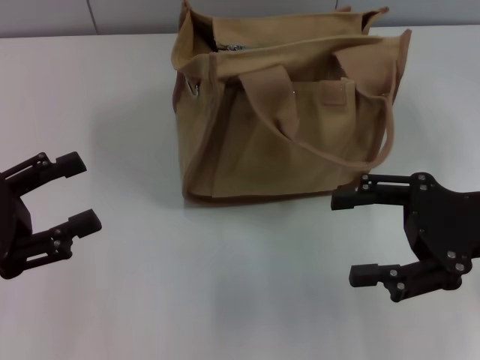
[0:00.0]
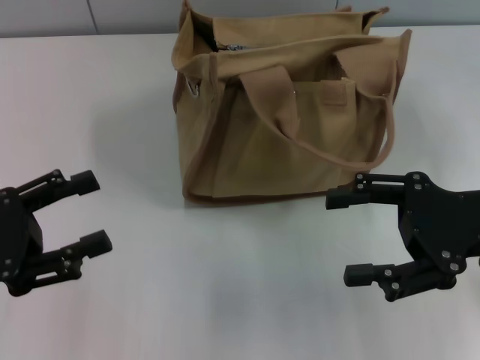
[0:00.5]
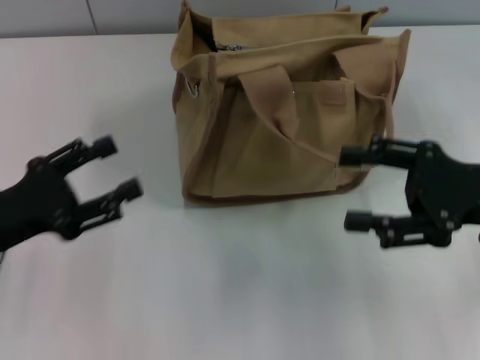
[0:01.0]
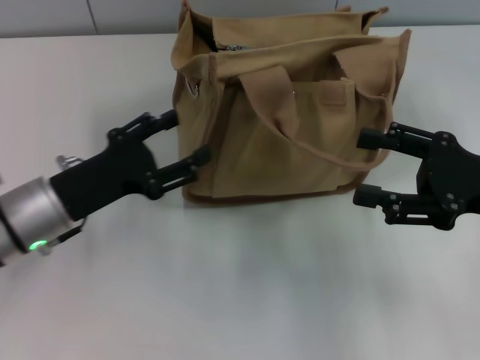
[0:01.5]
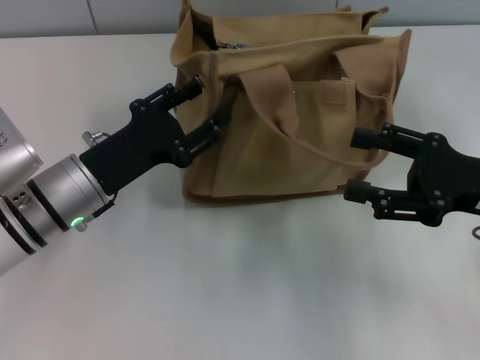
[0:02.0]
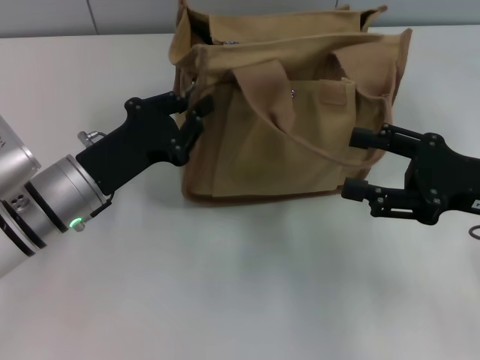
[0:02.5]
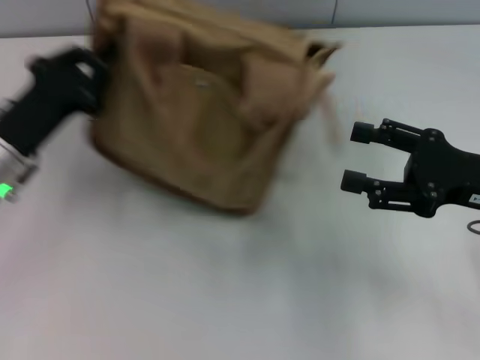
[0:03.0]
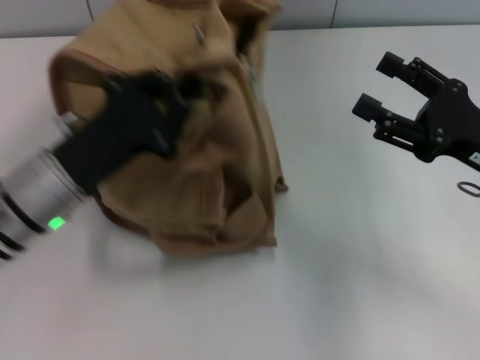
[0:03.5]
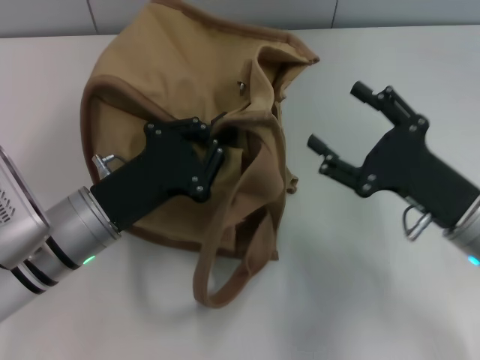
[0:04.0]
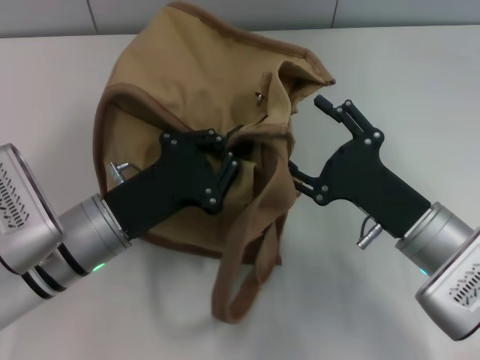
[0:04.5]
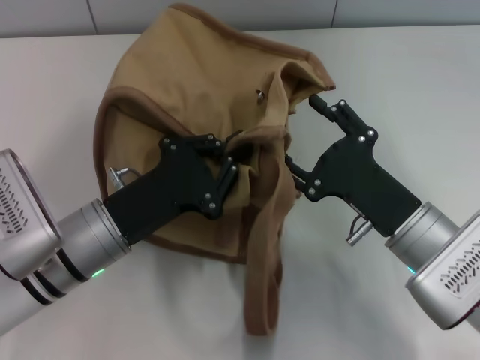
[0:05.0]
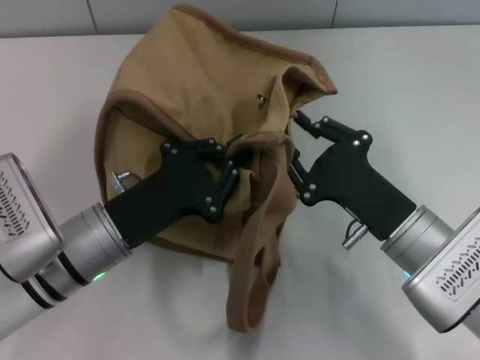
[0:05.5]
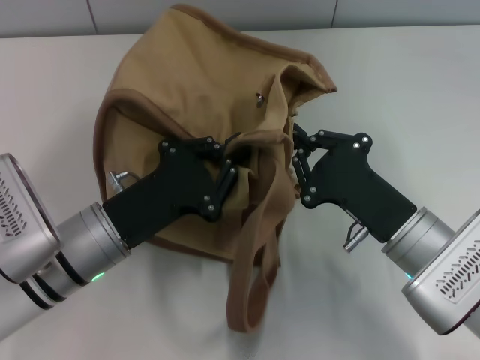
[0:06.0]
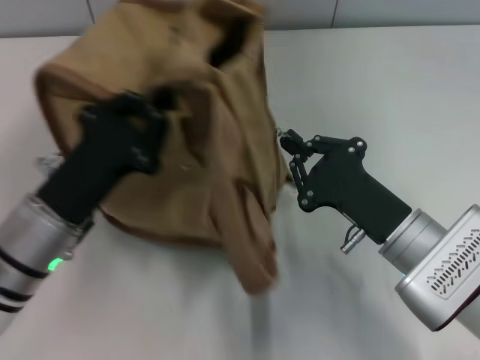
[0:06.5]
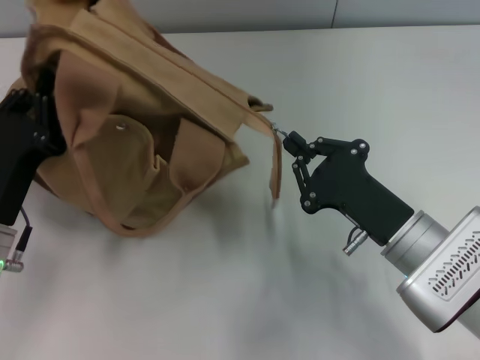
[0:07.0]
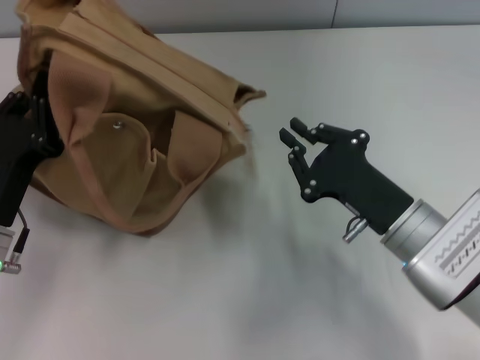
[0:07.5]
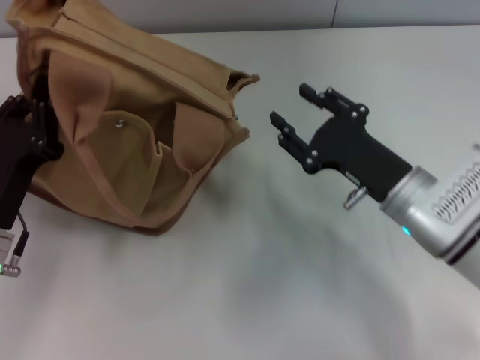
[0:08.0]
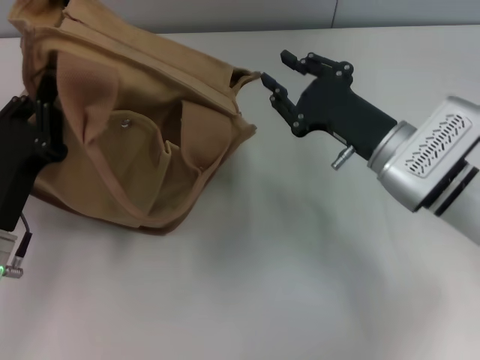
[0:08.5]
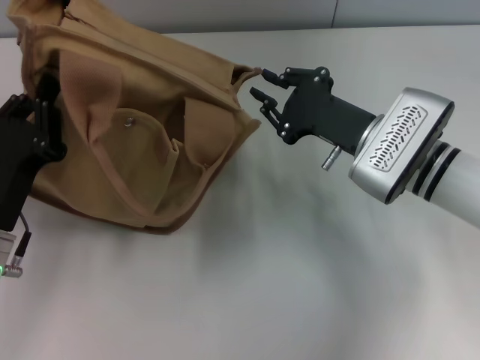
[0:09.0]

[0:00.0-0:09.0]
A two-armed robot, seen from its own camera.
Step, 0:00.0 to 0:07.0: Pull open the zipper with your right hand.
0:00.0 to 0:02.0: The left gripper is displaced to the right and forward by approximately 15 cm.
0:02.0 to 0:04.5: The right gripper shifts roughly 10 cm to the left and downward; the left gripper moves about 5 cm to the left and comes back, and closes its fingers.
0:04.5 to 0:07.0: The right gripper closes its fingers. The left gripper goes some 5 cm to the left.
0:07.0 to 0:09.0: The right gripper travels forward by approximately 10 cm.

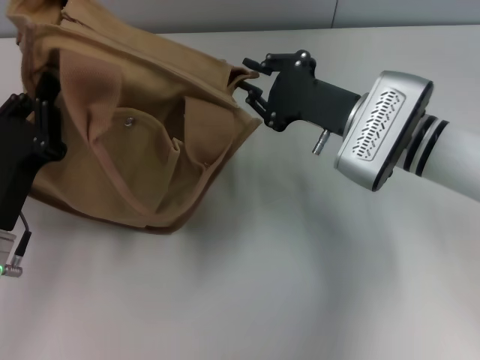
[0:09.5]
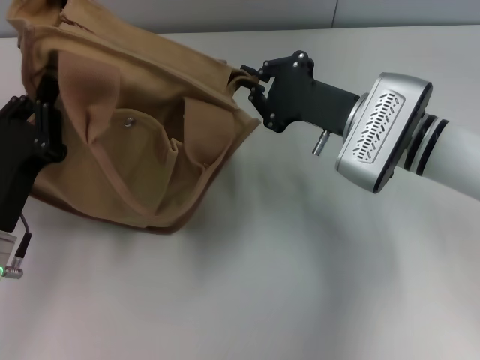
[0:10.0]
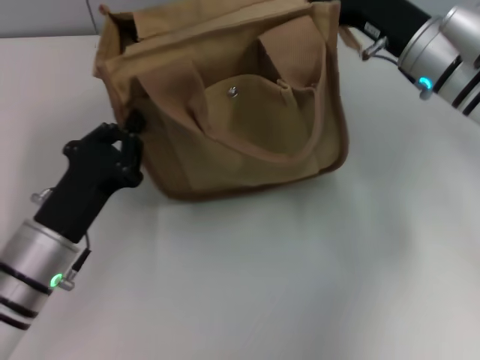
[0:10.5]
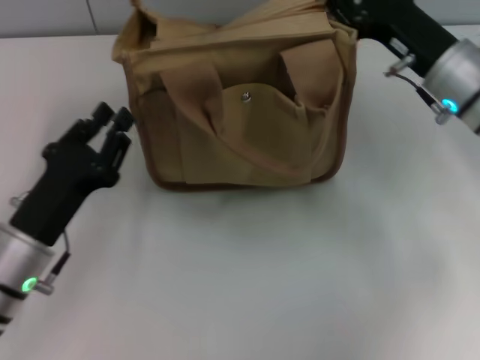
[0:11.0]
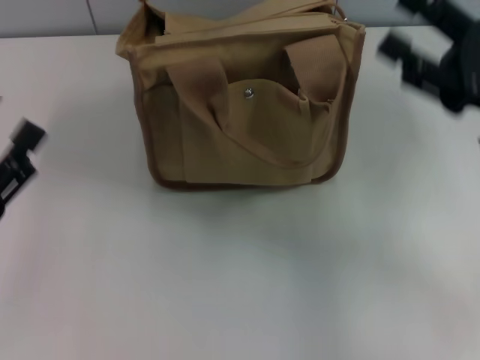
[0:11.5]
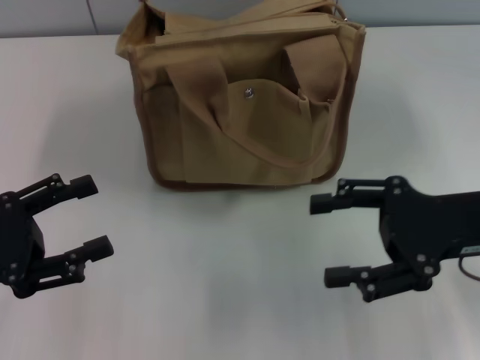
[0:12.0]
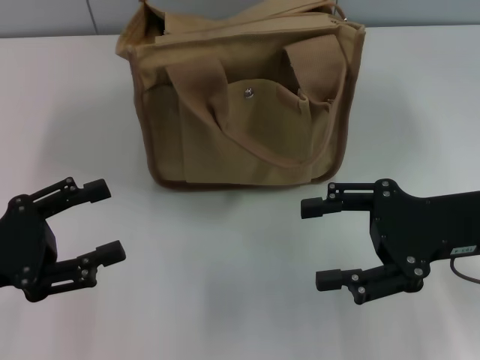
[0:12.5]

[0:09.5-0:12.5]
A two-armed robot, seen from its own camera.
0:09.5 to 0:11.0: The right gripper goes some 5 cm to the right.
0:11.0 to 0:12.5: The right gripper goes roughly 10 cm backward, and opens its fingers; the left gripper shifts some 10 cm to the left and upward, and opens its fingers.

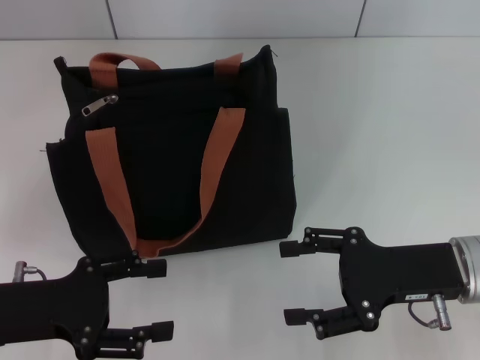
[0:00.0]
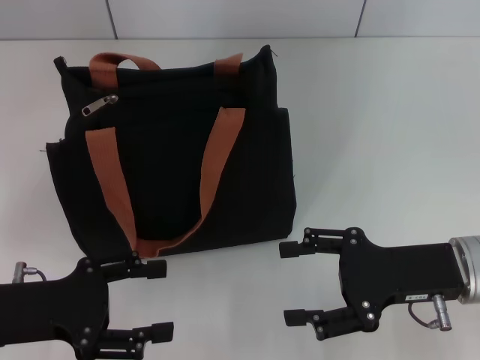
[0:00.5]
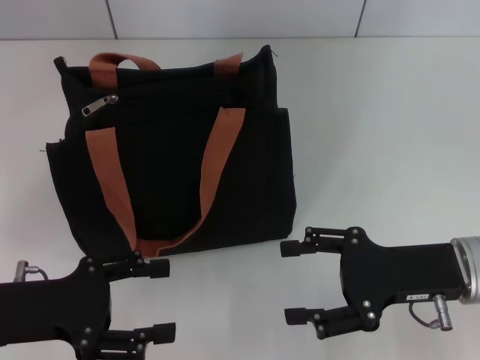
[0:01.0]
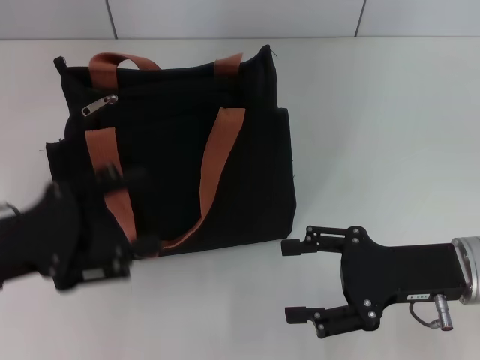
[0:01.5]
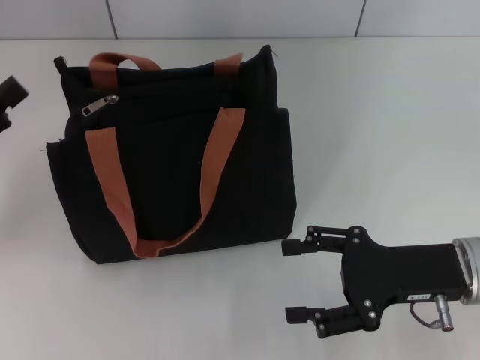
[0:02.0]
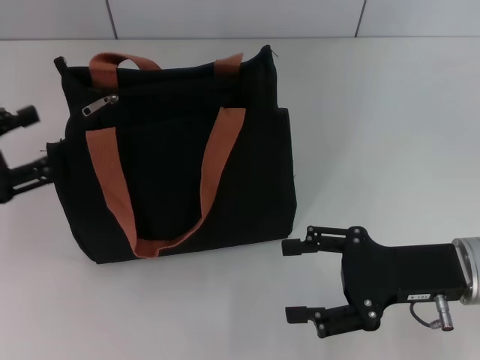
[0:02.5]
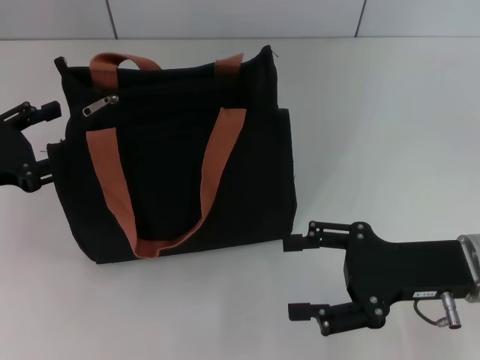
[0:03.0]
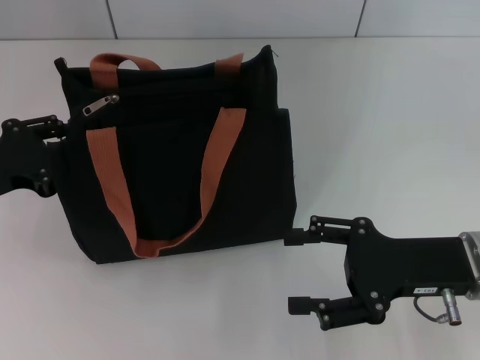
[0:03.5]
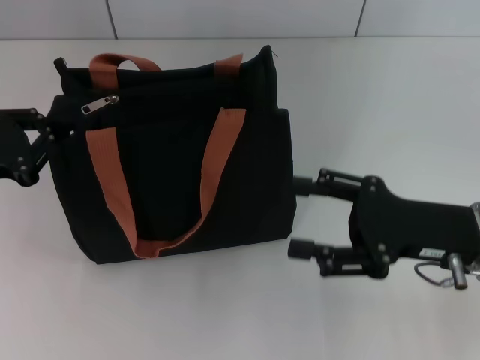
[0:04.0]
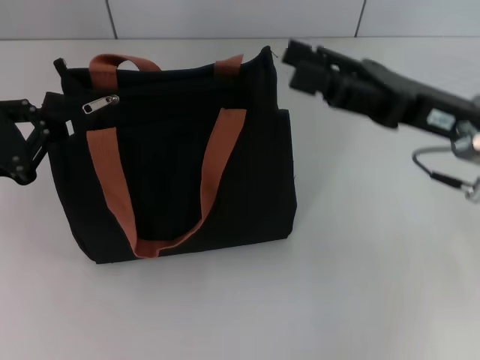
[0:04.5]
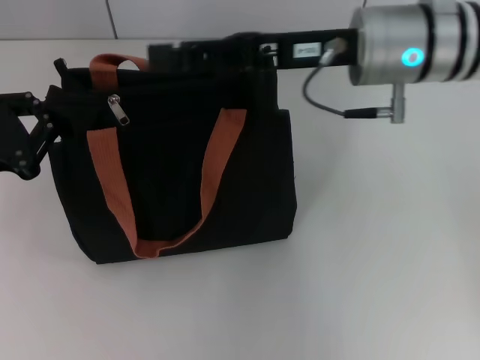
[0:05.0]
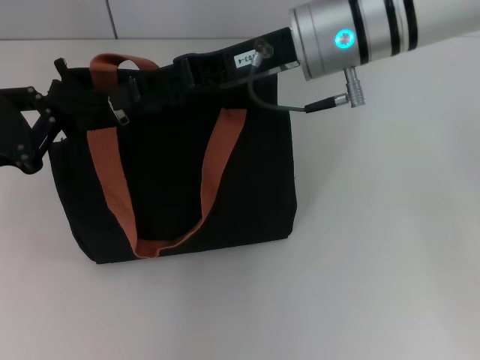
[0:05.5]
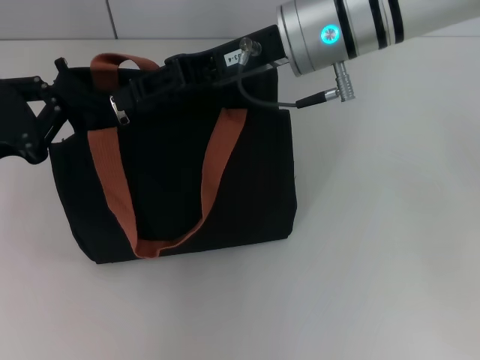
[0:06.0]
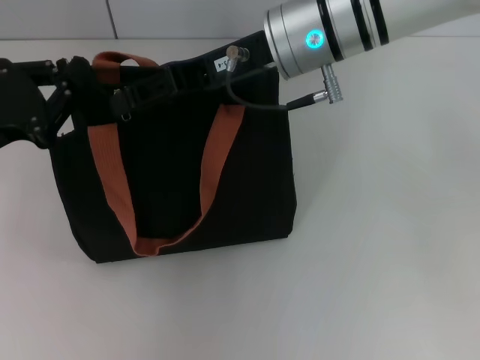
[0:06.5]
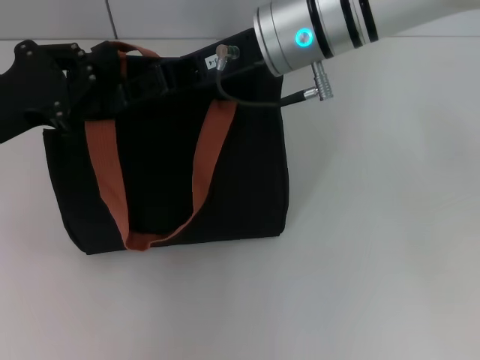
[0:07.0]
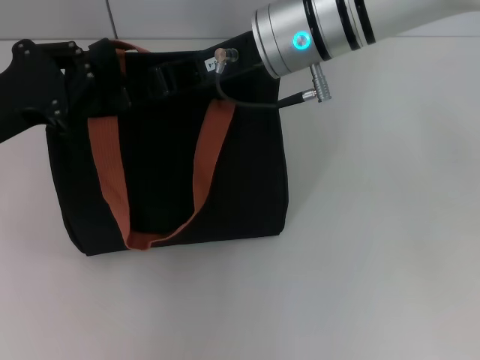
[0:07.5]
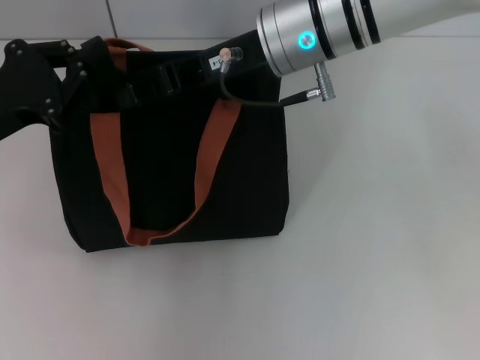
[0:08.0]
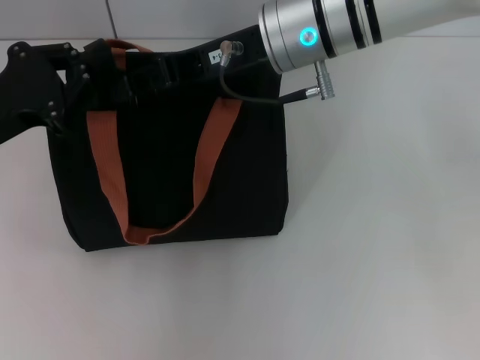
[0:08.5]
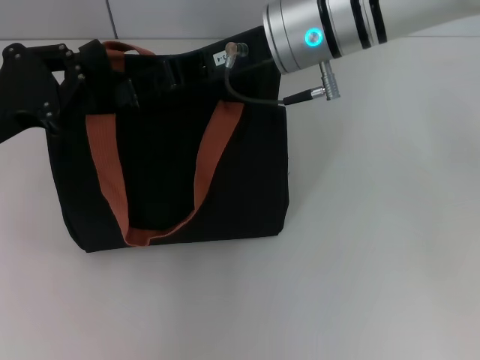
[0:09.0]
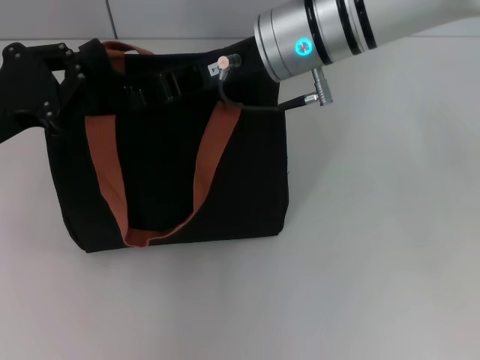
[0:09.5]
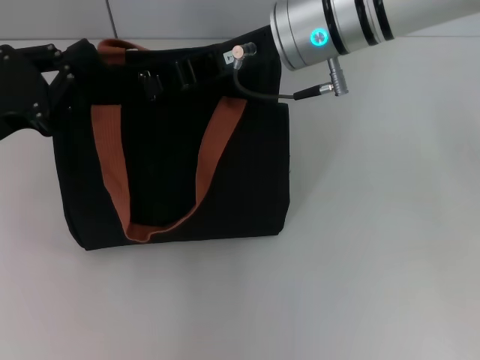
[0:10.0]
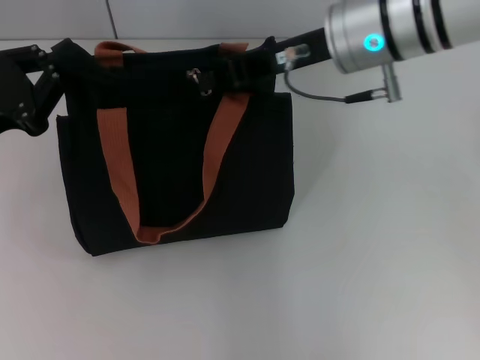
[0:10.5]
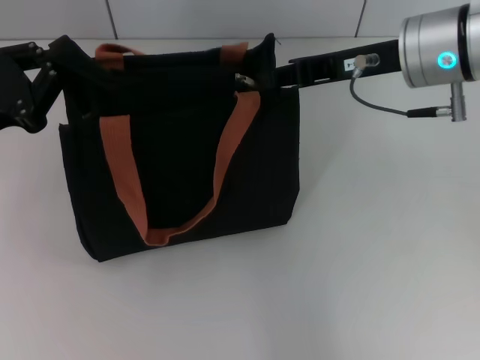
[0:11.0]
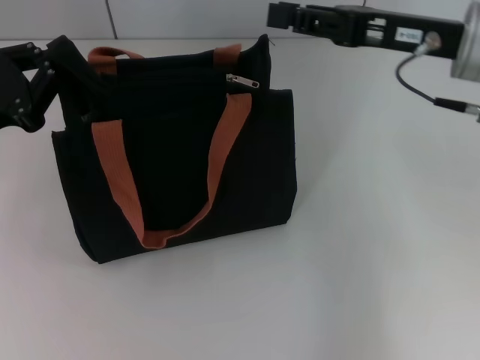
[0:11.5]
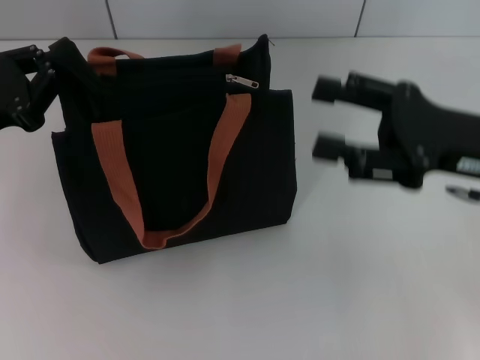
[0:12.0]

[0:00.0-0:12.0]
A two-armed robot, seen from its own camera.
Step, 0:00.0 to 0:11.0: Pull up the zipper with your right hand.
0:00.0 to 0:02.0: The left gripper is displaced to the left by approximately 5 cm.
0:02.0 to 0:04.0: The left gripper closes.
0:04.0 to 0:06.0: The right gripper is displaced to the left, forward and upward by about 25 cm.
0:06.0 to 0:08.0: The right gripper closes.
0:08.0 to 0:10.0: The grippers move only a little.
0:10.0 to 0:12.0: The right gripper moves to the right and backward, approximately 20 cm, and opens up.

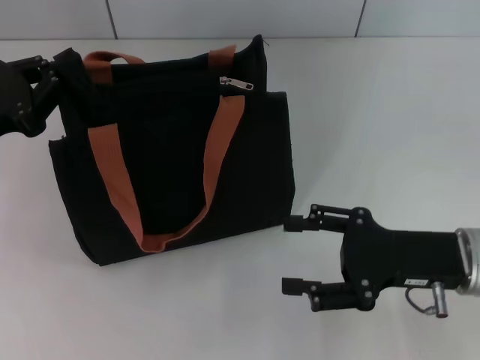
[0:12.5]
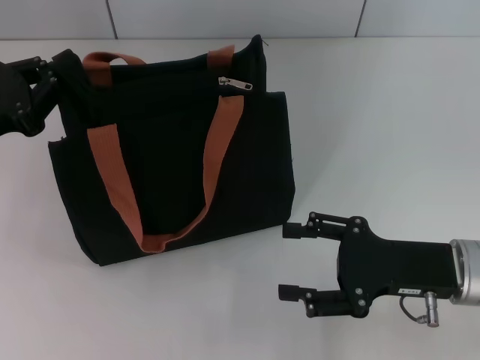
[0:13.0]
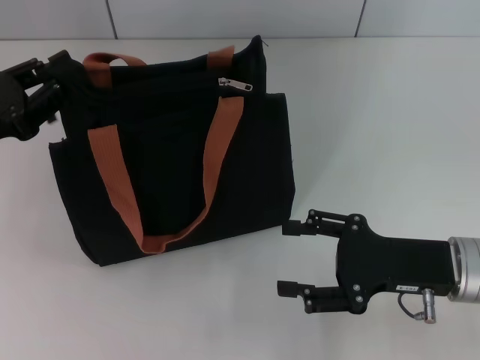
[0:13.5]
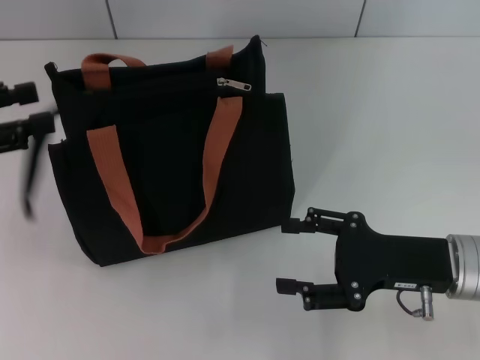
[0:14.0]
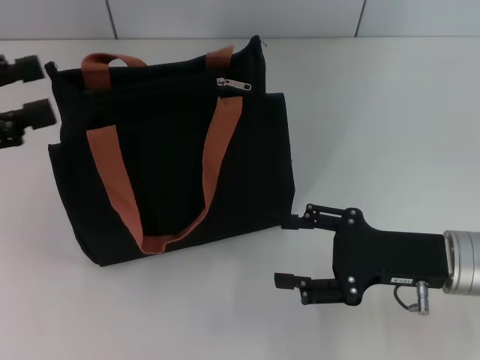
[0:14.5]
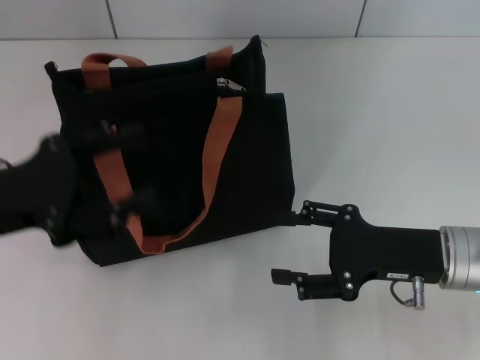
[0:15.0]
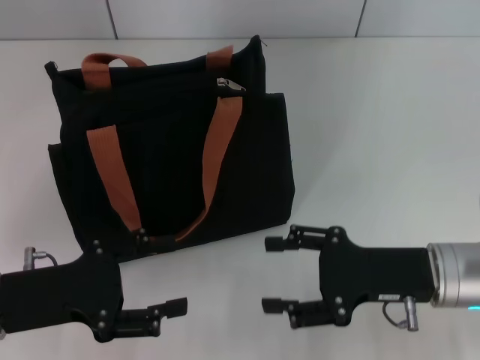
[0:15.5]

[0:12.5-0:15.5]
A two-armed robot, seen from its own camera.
0:12.5 to 0:14.0: The left gripper changes place by some 5 cm, and opens up.
0:14.0 to 0:15.5: The left gripper travels downward, to the right and backward by roughly 15 cm.
